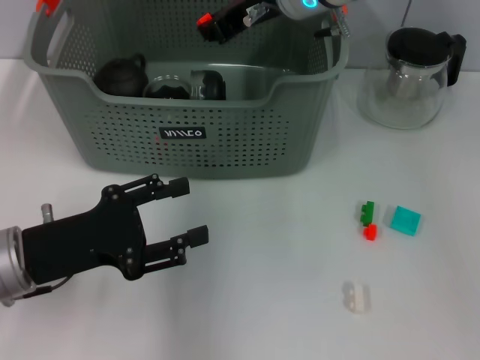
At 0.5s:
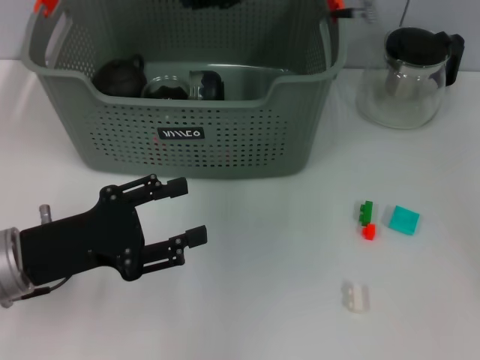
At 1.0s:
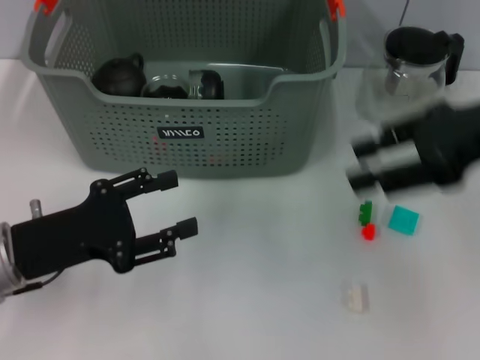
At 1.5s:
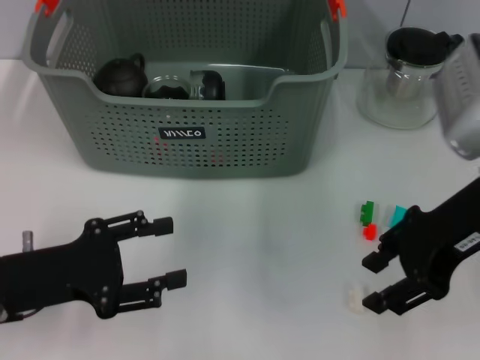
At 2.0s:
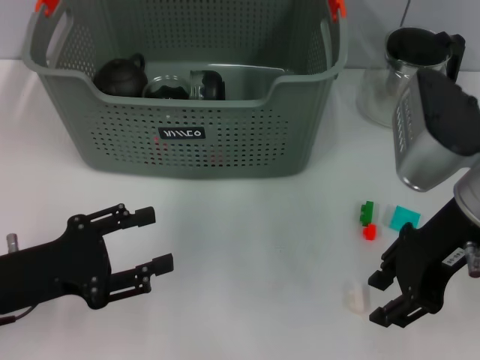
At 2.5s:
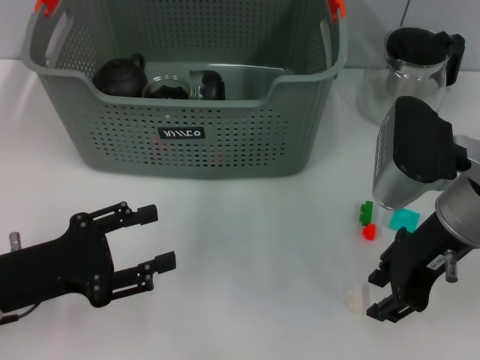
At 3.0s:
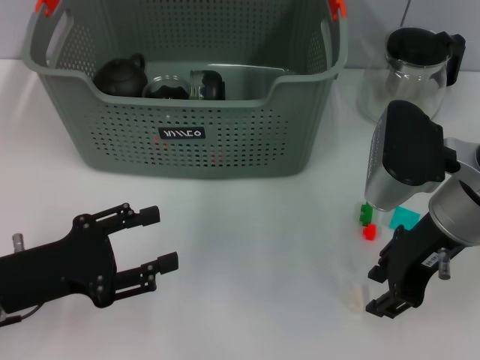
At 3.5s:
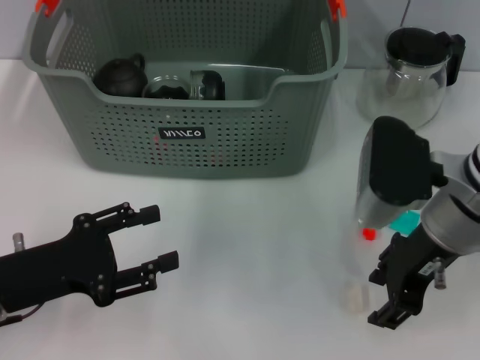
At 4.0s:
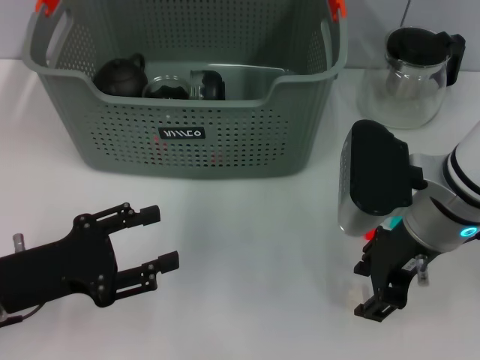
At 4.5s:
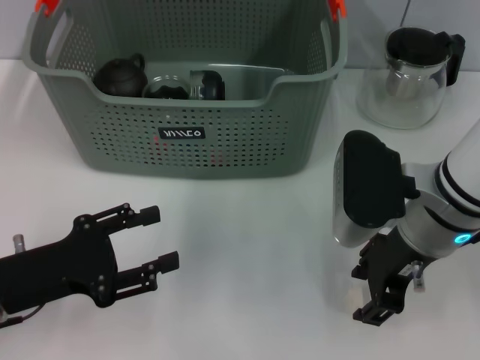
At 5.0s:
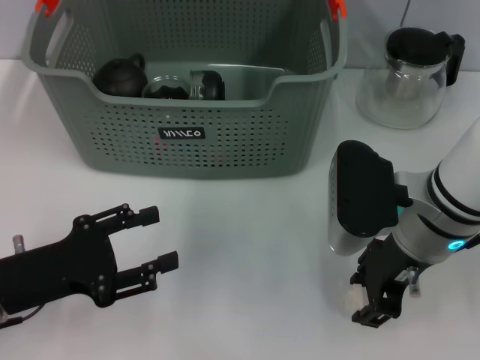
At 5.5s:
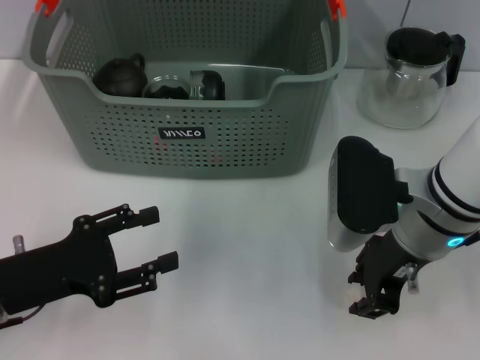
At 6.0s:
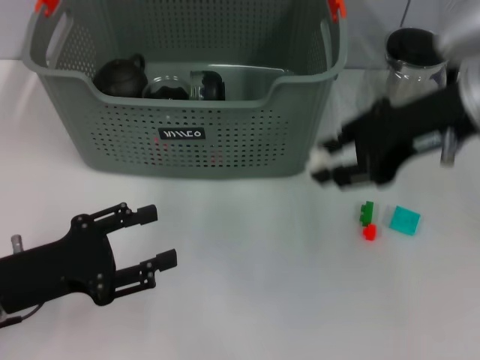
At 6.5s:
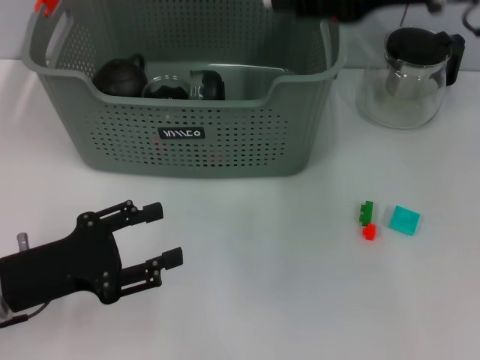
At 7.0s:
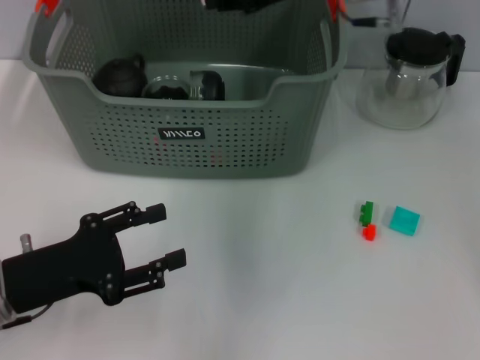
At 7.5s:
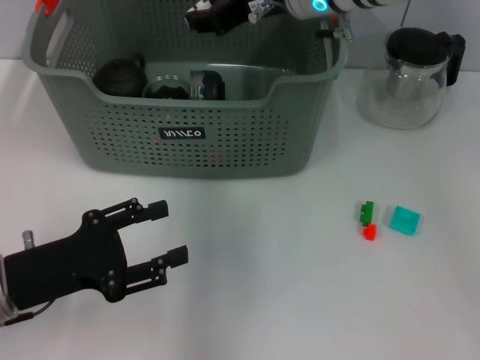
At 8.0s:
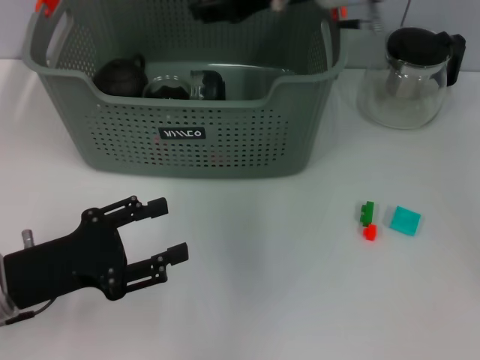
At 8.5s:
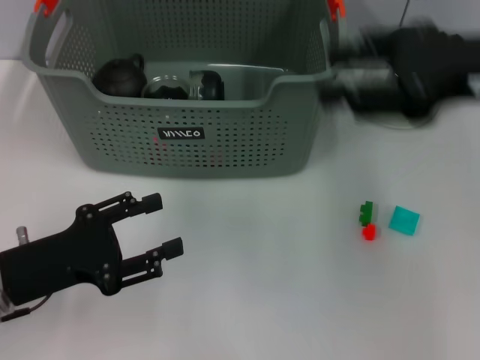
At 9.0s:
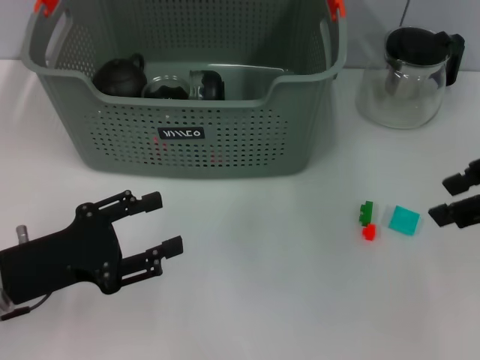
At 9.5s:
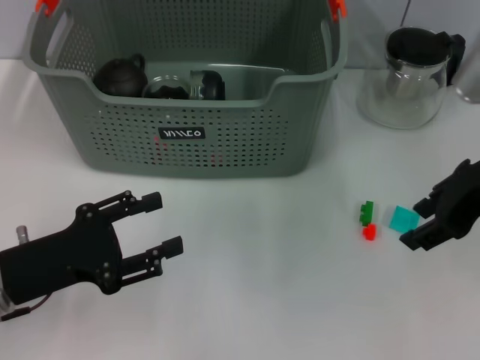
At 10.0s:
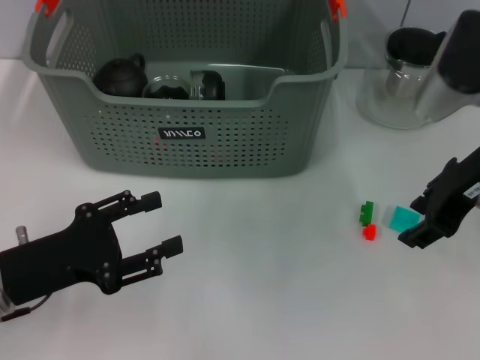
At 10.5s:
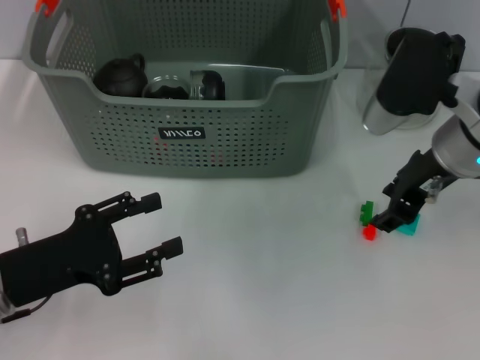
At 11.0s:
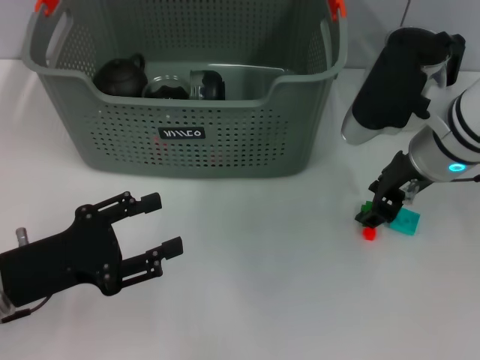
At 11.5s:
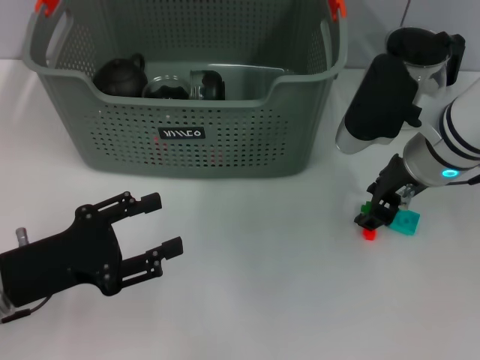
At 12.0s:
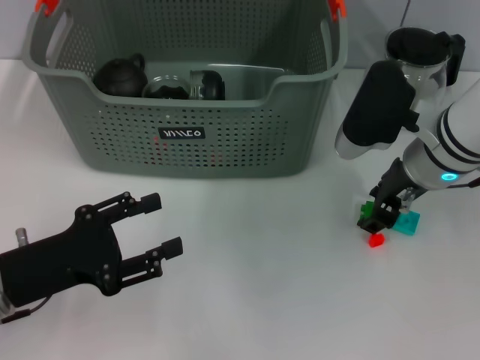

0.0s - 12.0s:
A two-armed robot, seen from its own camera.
Task of the whole recording: pick up the teacup on the table and place it into the storage bin, pick up the block on the table and place it into the storage bin.
Step, 1.0s - 5.0s: Grasp the white block with right gripper.
Step, 5.5s - 8.0s: Place the white block in the storage box with right gripper.
0.0s - 2.0s: The right gripper travels backward and to the right by approximately 20 cm, and opens up.
2.0s - 4.0s: The right gripper travels downward by approximately 5 cm.
4.0s - 6.0s: The right gripper travels upward by some 10 cm.
6.0s - 8.0s: The right gripper shifts approximately 15 cm forward and to the left.
8.0s - 10.0s: The right gripper heads to the right and backward, covering roughly 15 cm.
10.0s - 12.0s: The right gripper moves downward, about 10 cm.

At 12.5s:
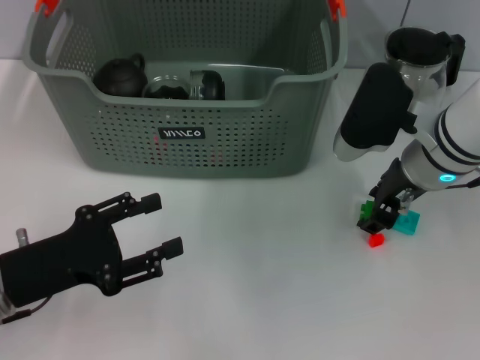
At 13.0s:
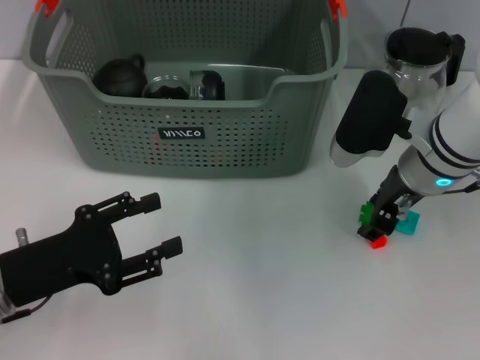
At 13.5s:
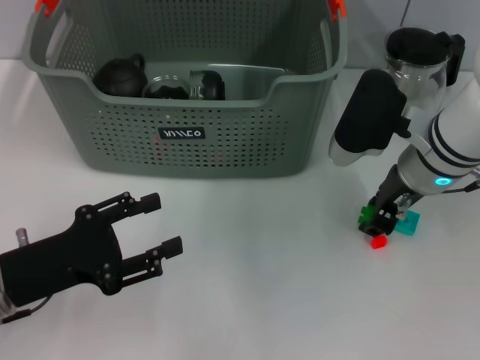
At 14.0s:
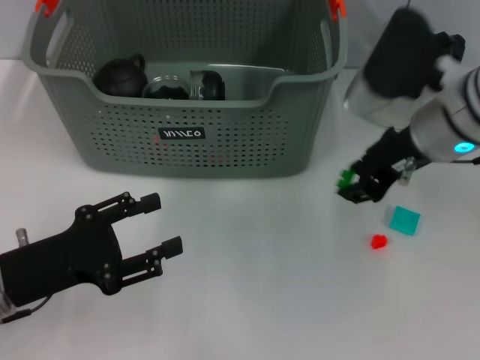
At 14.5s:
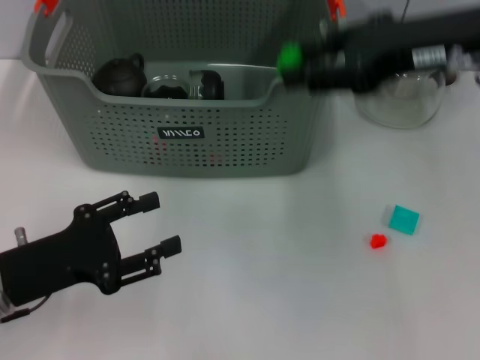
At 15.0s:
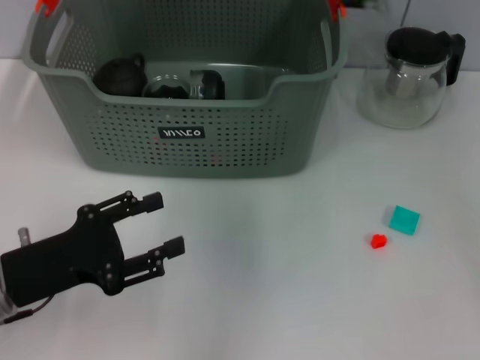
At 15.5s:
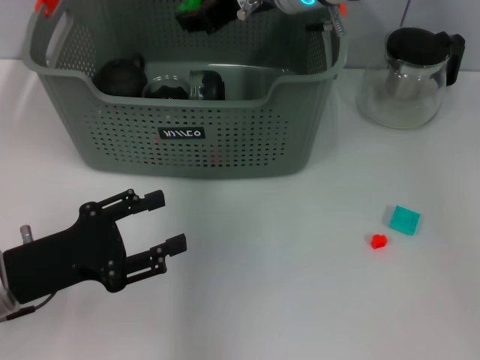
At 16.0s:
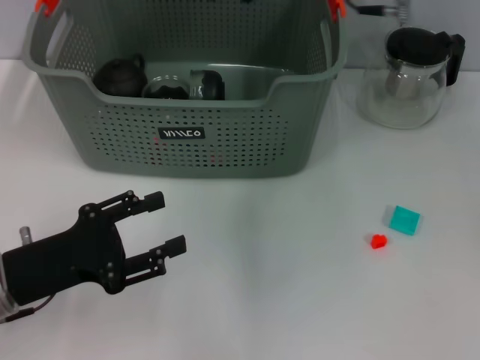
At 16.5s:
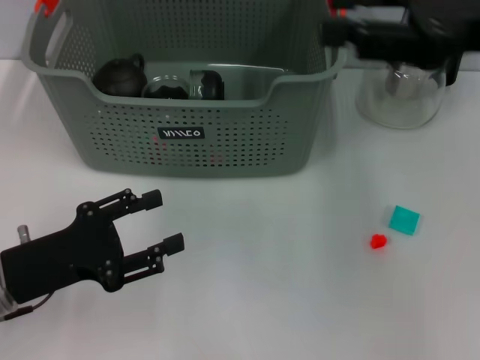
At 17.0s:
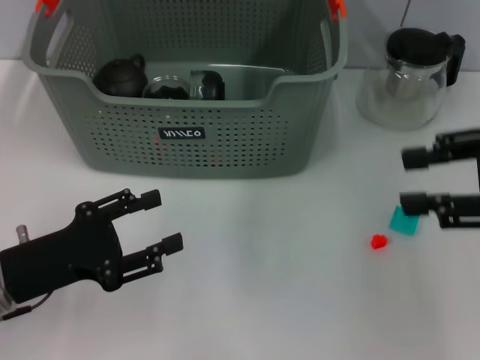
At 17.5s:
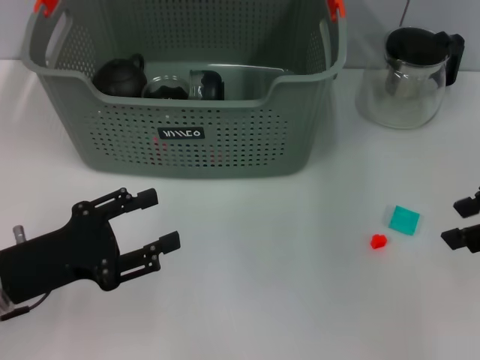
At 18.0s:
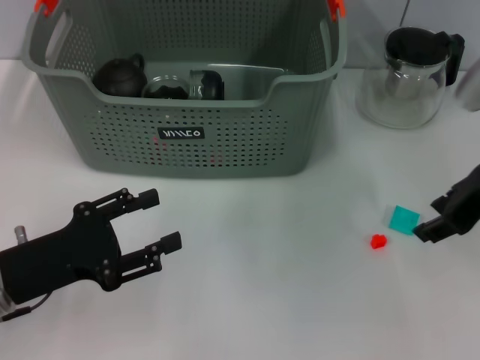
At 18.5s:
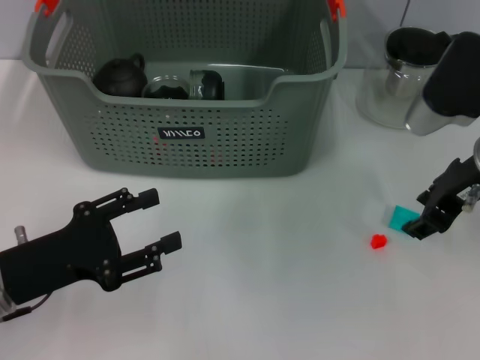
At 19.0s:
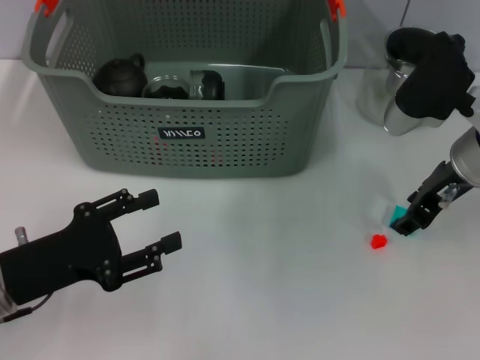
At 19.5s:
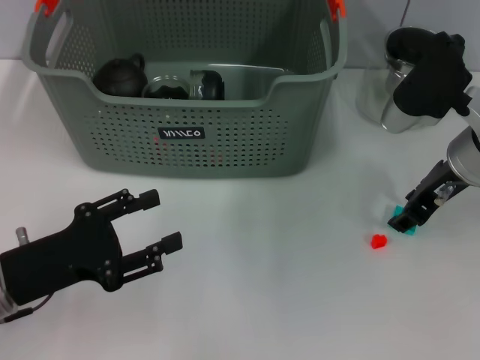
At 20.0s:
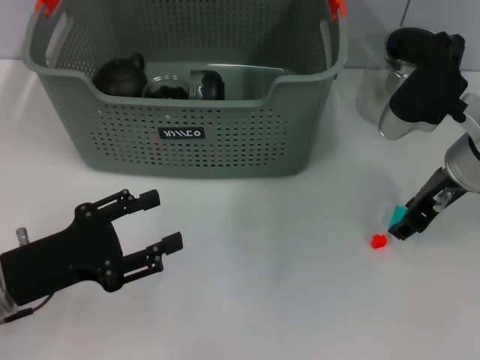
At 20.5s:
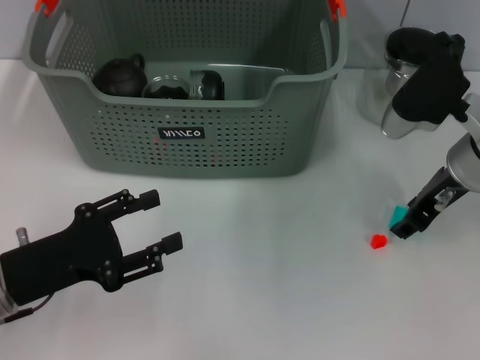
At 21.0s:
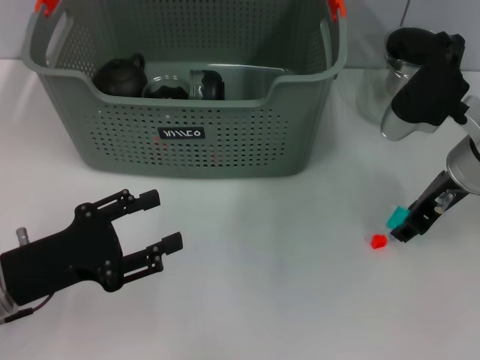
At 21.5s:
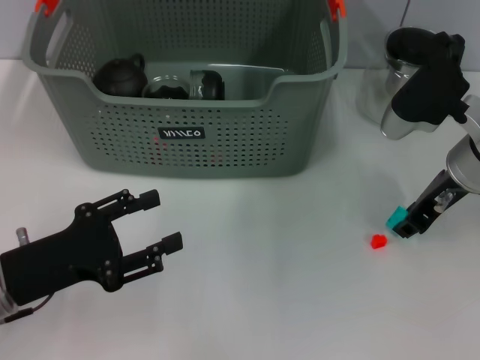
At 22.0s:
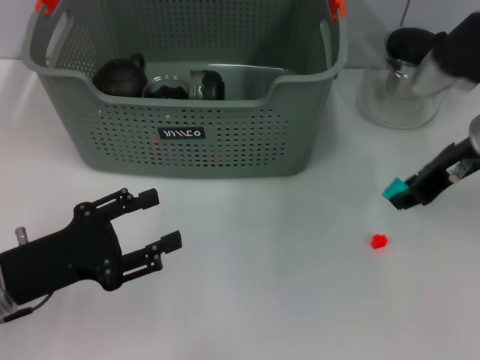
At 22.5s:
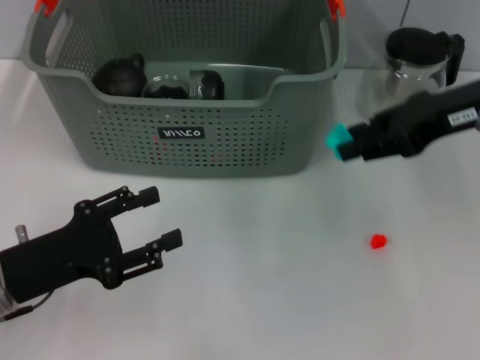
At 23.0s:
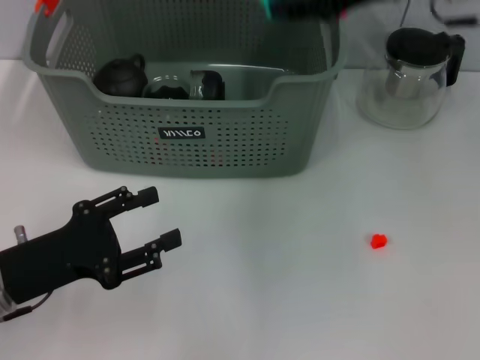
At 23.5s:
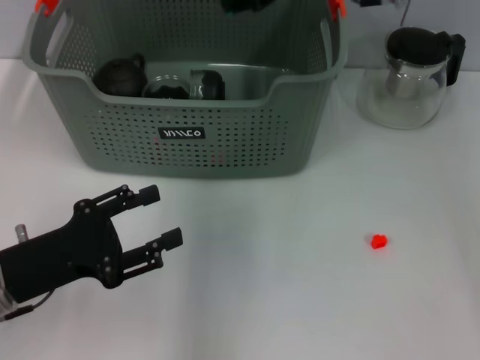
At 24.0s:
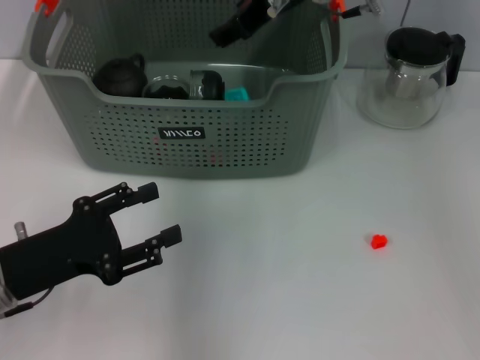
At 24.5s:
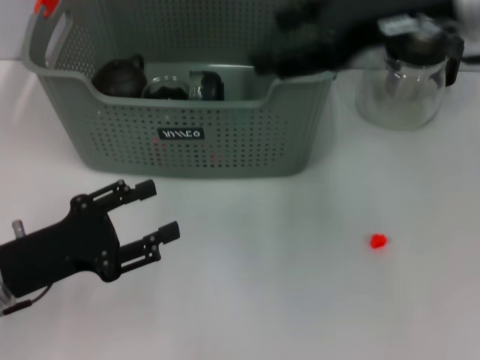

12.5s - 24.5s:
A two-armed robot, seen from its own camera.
Task of the whole recording: pick up the teacup on the table and place it into the storage bin, pick up the block on the table and place it into the storage bin.
Step, 13.5s - 16.0s: Place the green block in the storage box with right gripper.
Step, 16.5s - 21.5s: Grasp the light blue block with right gripper.
12.5s - 14.5s: The right gripper moves upward, about 15 cm.
14.5s - 16.5s: The right gripper moves roughly 15 cm to the left and comes back.
16.5s - 18.5s: The right gripper travels downward by about 10 cm.
18.5s - 20.5s: The right gripper changes place by some 5 cm.
20.5s - 22.5s: The right gripper goes about 10 cm upward.
22.5s - 24.5s: The right gripper shifts approximately 10 cm upward and to the left, and opens.

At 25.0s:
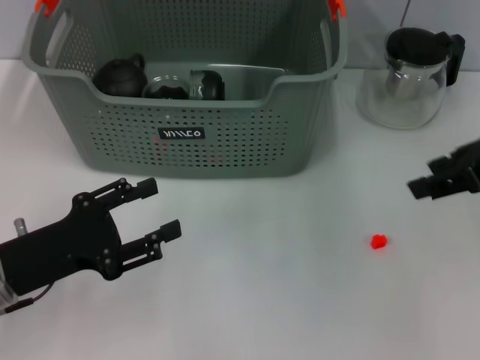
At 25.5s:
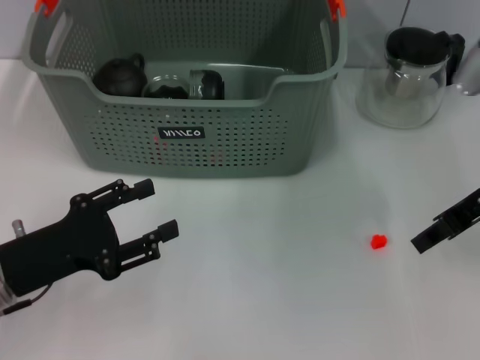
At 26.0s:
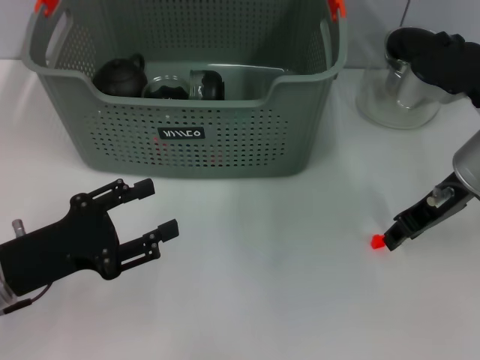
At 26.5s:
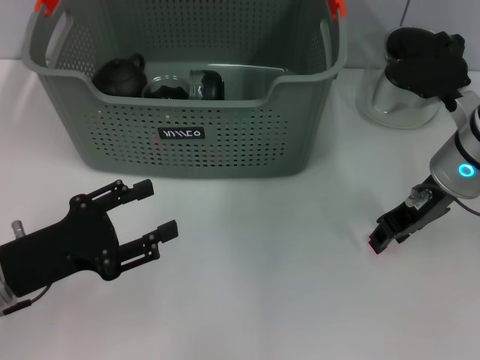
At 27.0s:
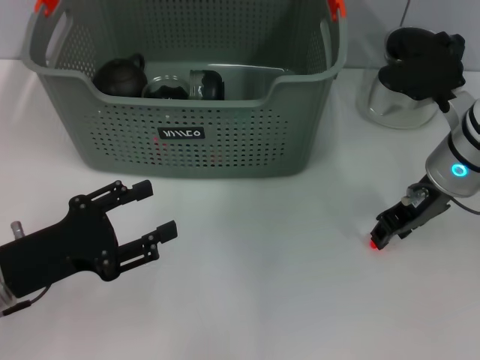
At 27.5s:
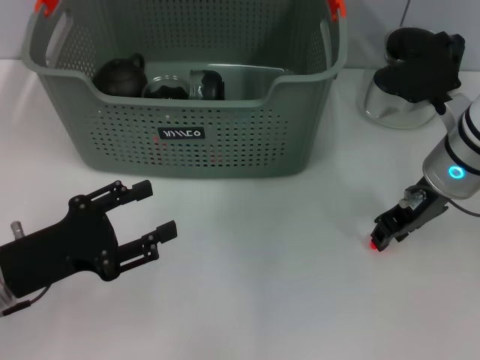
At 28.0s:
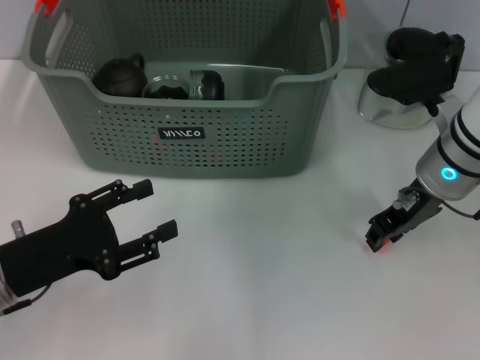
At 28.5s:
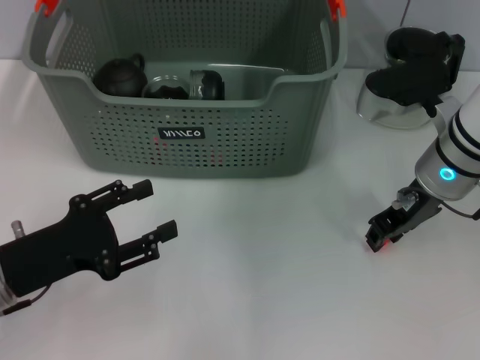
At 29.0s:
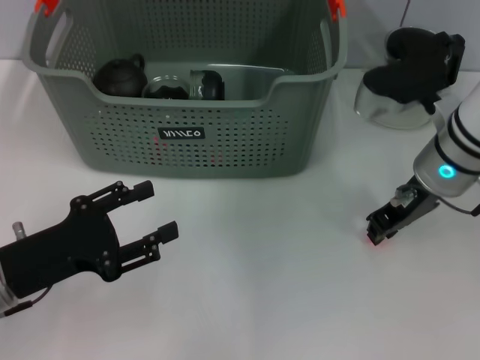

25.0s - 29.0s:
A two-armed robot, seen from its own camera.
Task of the whole recording: pick up the teacup on the table and place it into the storage bin, pick up the block on the table and place it into the storage bin.
Step, 25.0s - 28.5s: Grasp the orange block with right gripper.
25.0s - 27.0s: The right gripper heads downward, to the left and forward, covering approximately 15 cm.
27.0s - 29.0s: Neither gripper changes place.
